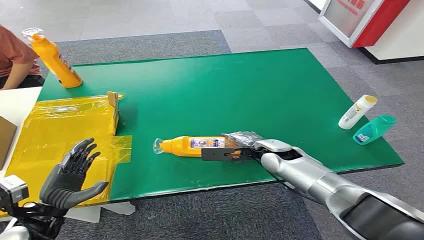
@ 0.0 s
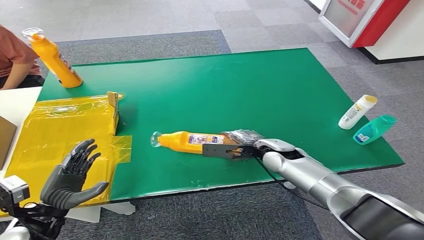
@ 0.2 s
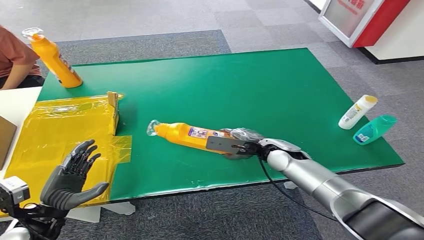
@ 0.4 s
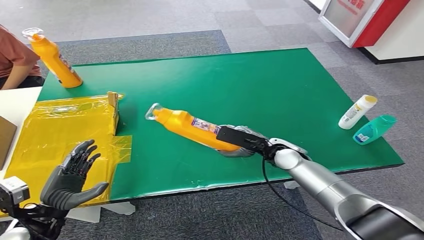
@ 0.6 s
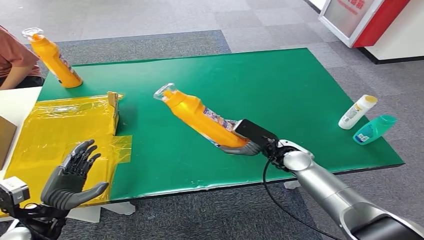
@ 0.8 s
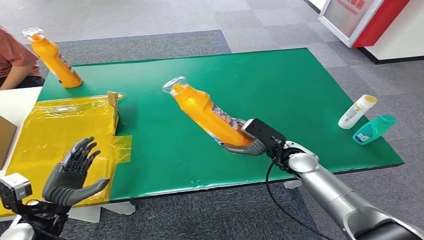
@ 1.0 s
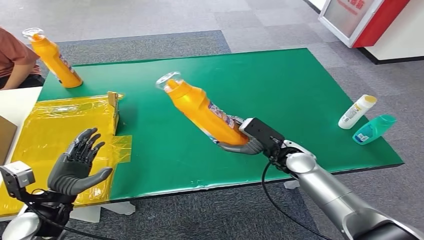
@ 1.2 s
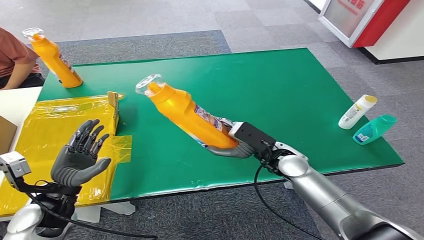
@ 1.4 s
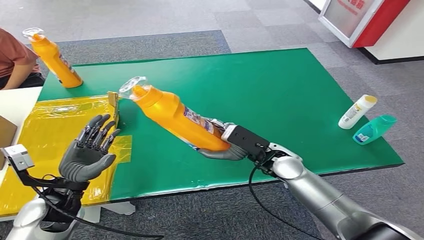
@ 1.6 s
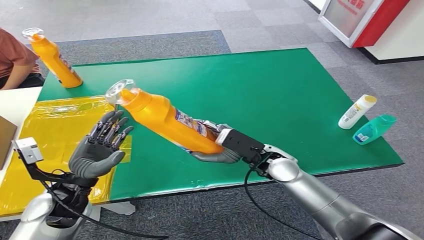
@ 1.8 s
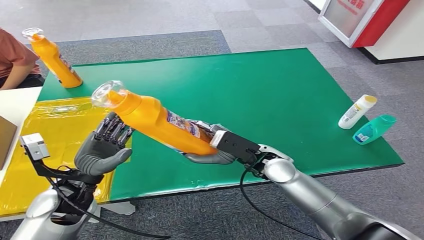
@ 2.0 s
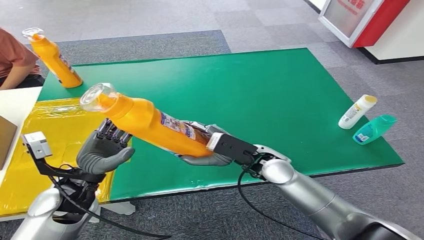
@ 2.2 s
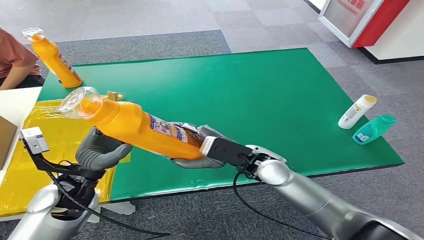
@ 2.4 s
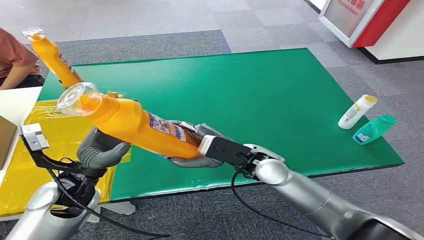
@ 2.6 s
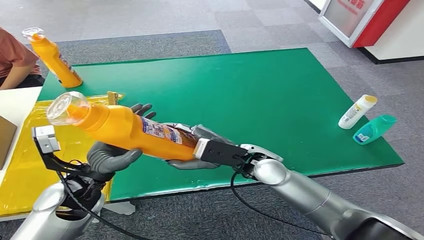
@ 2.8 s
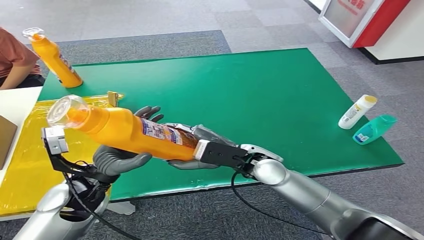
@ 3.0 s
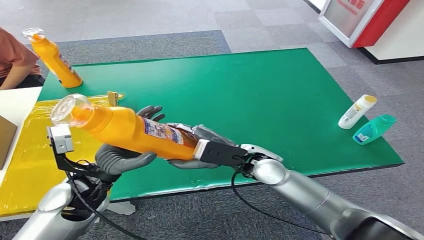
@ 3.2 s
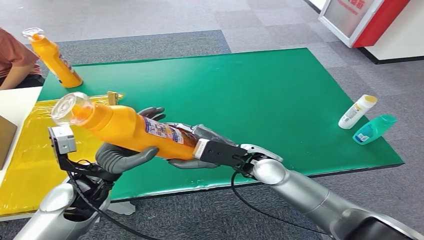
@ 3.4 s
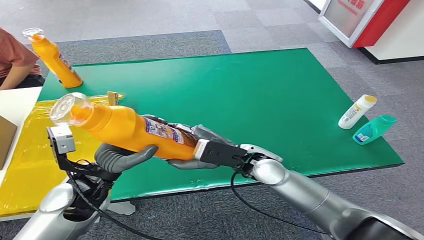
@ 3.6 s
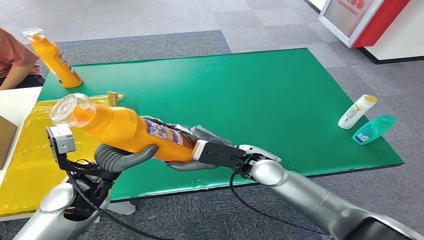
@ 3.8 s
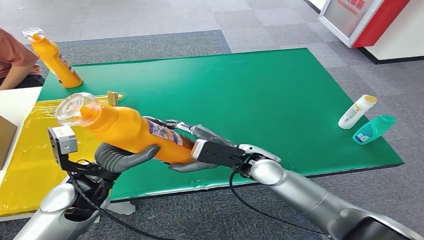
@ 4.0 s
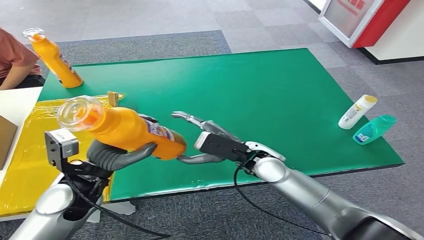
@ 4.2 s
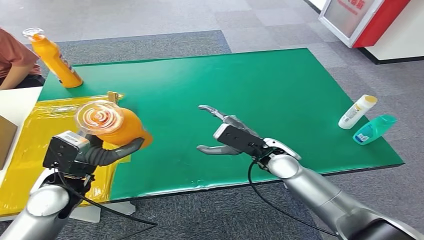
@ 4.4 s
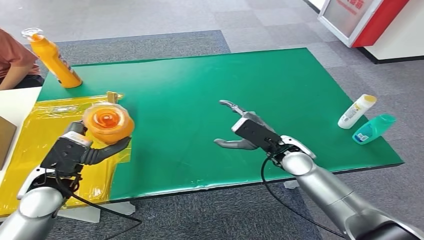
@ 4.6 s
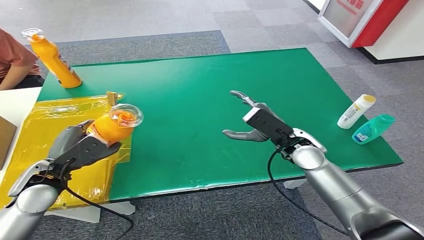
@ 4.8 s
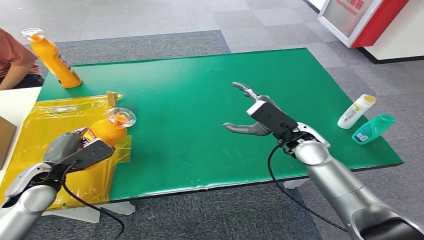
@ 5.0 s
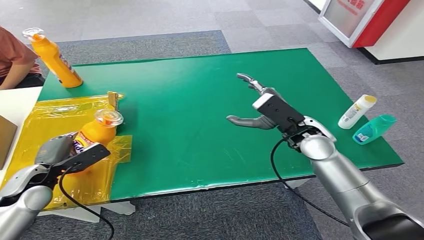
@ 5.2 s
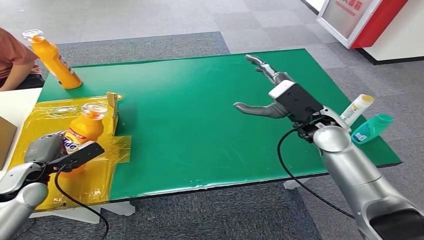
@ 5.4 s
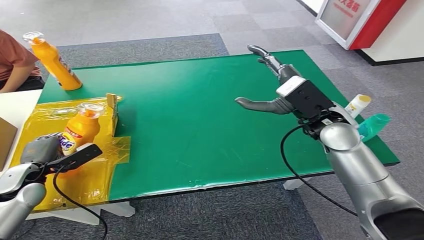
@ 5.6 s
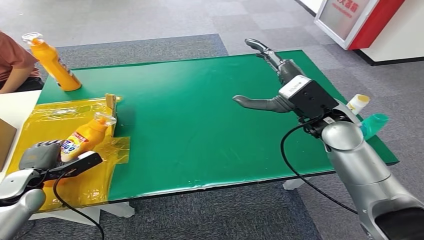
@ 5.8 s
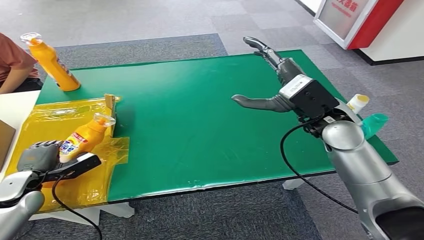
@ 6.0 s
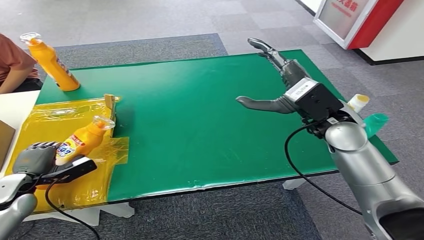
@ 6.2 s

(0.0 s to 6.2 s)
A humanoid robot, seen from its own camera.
Step, 0.0 s - 1.2 s: Pick up the bottle from the table.
Step, 1.4 s - 6.2 s: Turn the bottle to the front side.

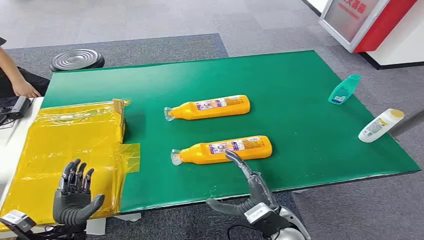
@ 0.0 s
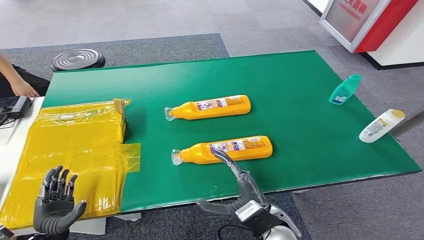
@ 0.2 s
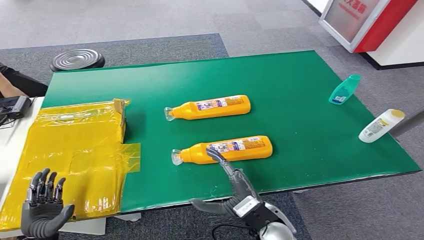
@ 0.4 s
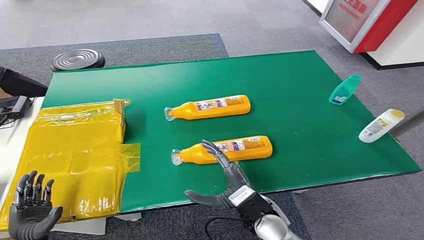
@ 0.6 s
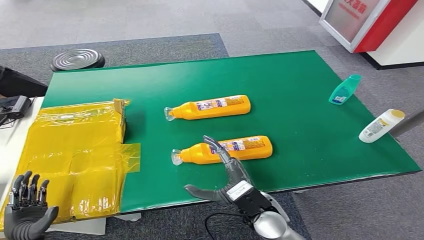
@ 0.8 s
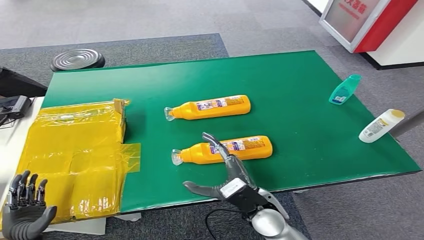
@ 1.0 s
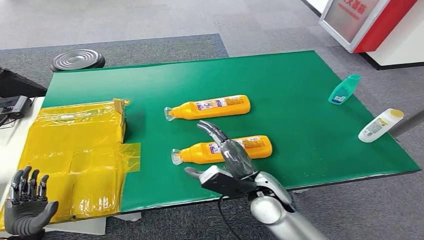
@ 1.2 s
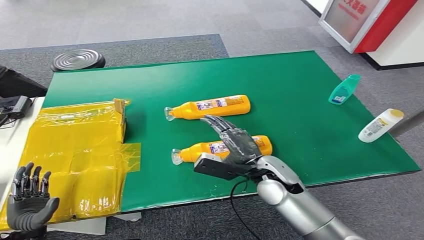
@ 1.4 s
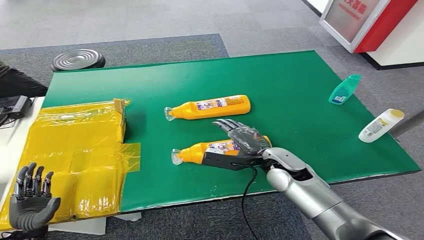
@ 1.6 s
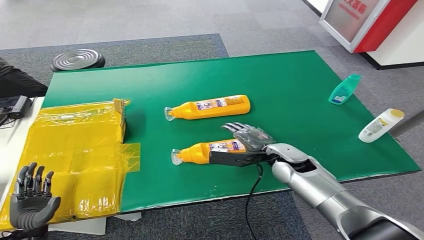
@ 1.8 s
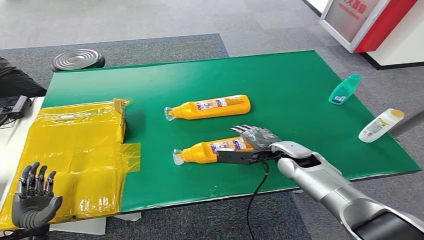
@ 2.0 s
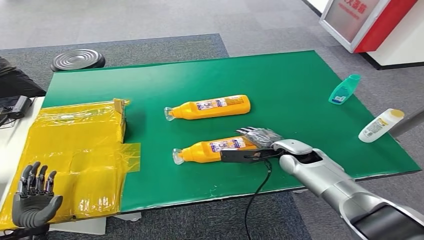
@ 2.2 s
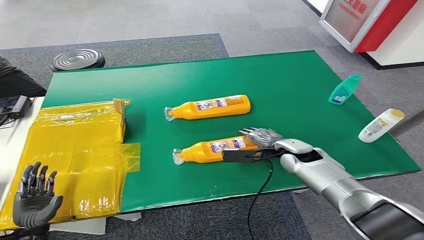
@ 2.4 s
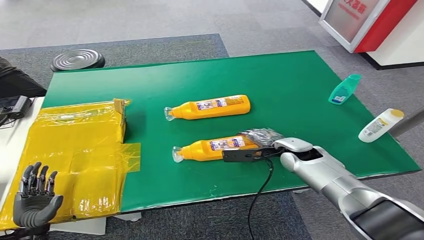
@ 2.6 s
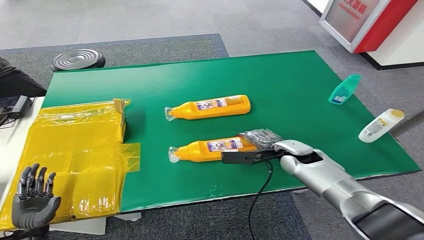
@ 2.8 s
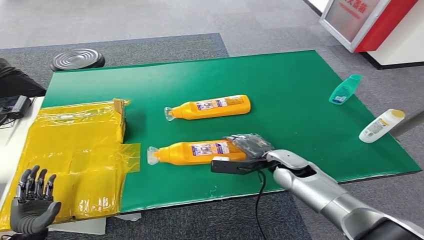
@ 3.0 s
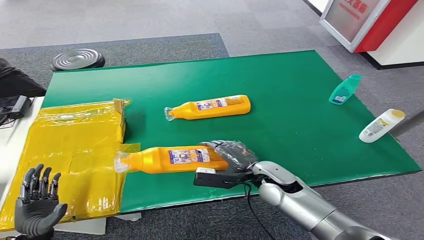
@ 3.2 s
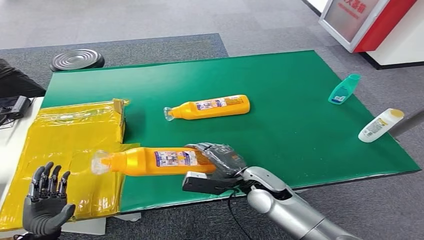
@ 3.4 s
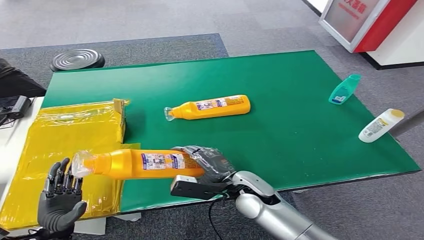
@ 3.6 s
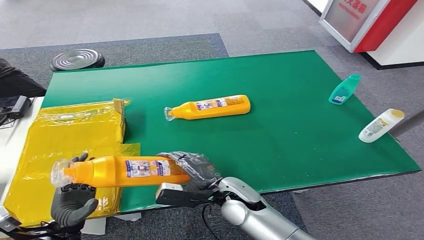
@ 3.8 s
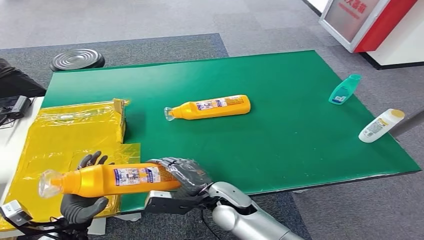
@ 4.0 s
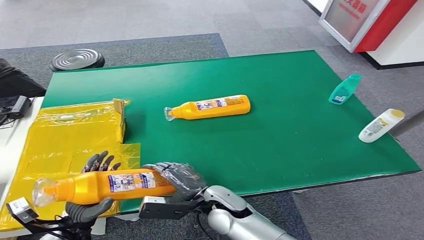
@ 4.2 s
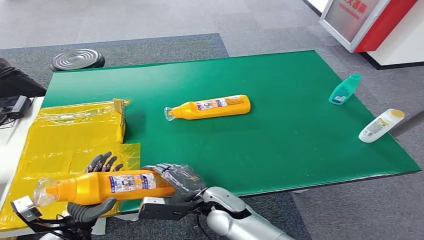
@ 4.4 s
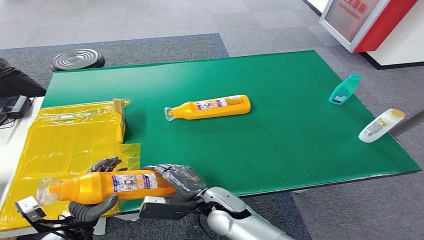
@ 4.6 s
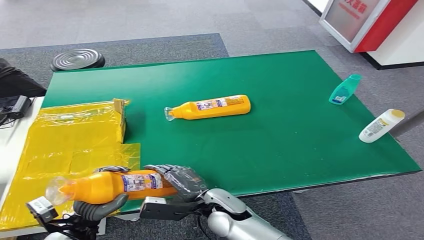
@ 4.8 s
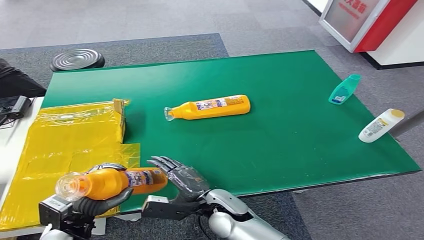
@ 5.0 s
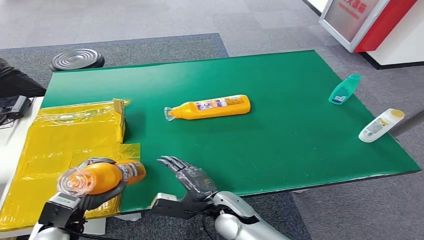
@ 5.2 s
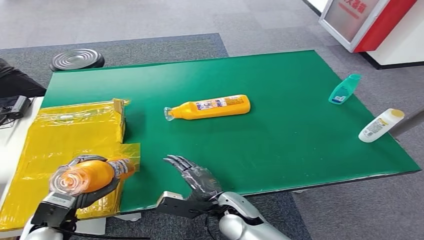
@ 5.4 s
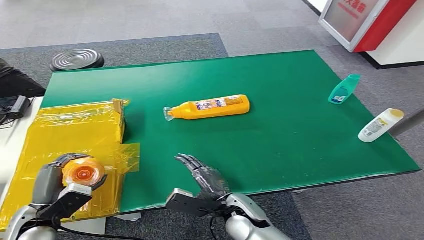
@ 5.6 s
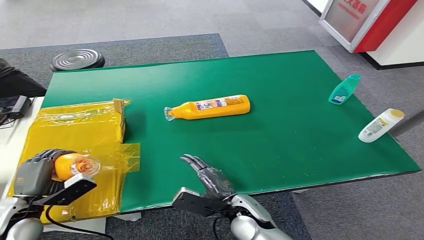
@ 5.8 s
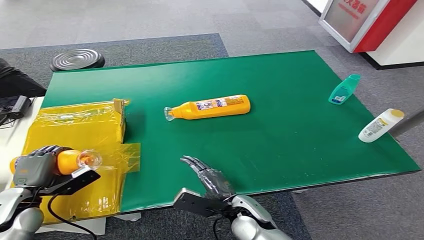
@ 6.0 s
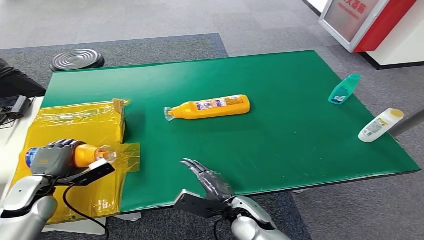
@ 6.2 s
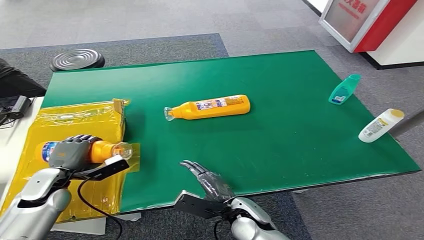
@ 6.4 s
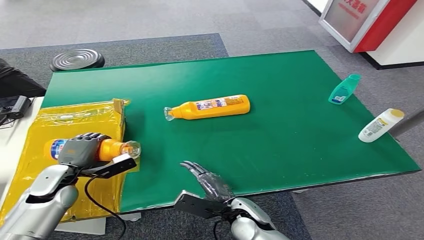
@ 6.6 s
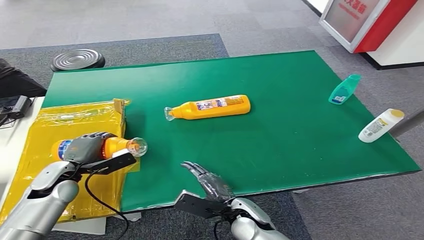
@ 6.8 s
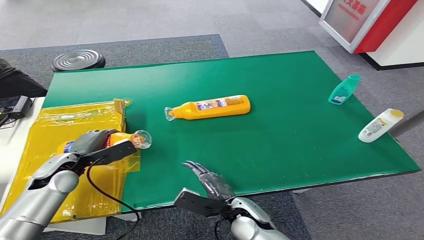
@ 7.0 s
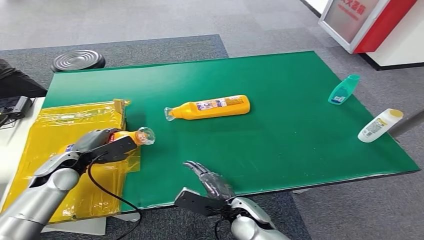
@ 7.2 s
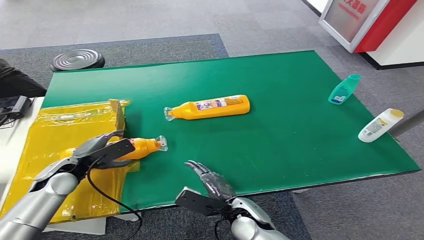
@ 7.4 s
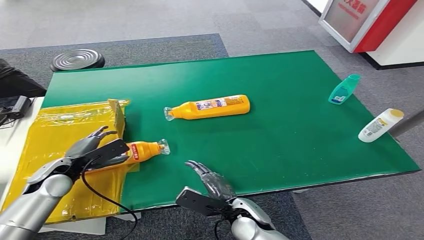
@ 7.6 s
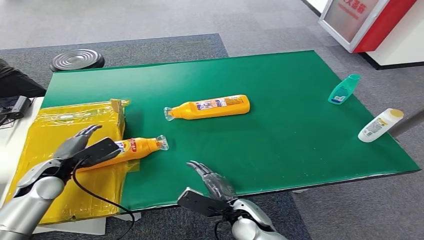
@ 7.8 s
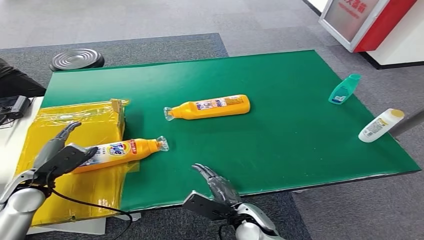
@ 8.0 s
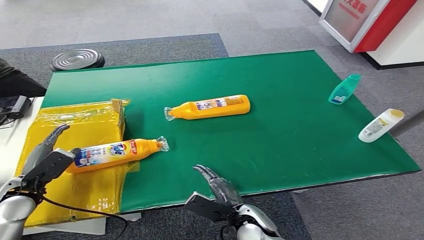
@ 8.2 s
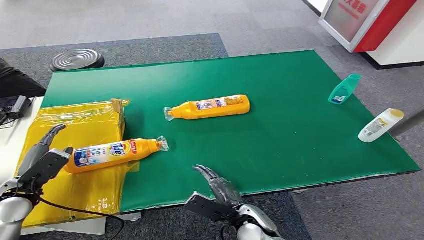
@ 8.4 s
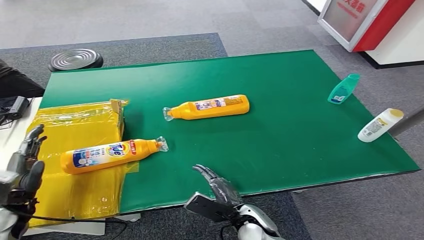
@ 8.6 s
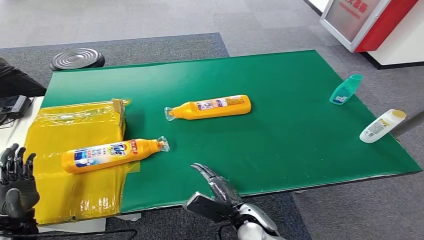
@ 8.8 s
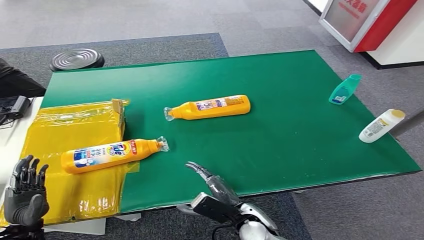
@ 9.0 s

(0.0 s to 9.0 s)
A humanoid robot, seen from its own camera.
Step, 0.0 s - 3.6 s: Pick up the bottle from the table.
Step, 3.8 s - 9.0 s: Turn the bottle to the front side.
3.0 s - 4.4 s: The left hand is displaced to the right by some 10 cm, while the right hand heads to the left and backward, covering about 20 cm.
4.4 s - 6.0 s: The left hand travels to the left, forward and upward by roughly 15 cm. The right hand travels to the right by some 5 cm.
6.0 s - 7.6 s: The left hand moves forward and to the right, some 10 cm.
7.6 s - 9.0 s: The left hand is displaced backward and downward by approximately 15 cm.
